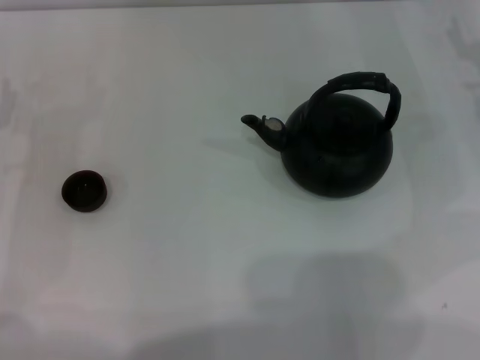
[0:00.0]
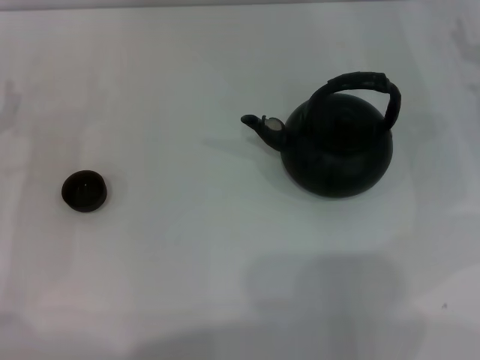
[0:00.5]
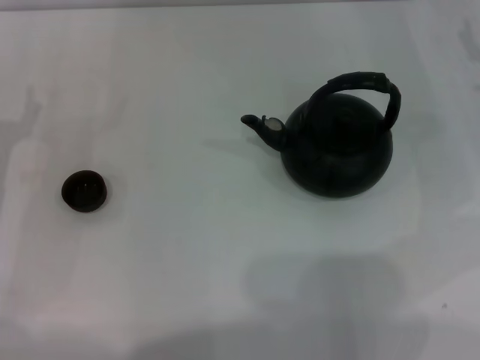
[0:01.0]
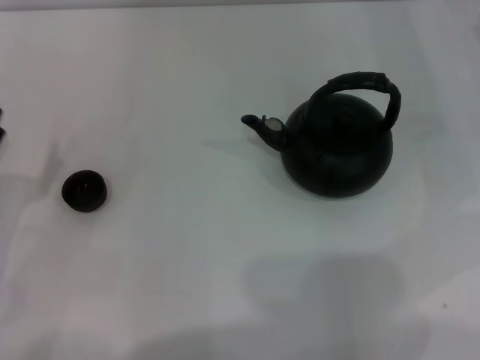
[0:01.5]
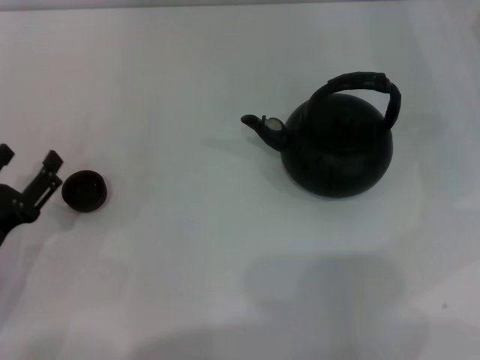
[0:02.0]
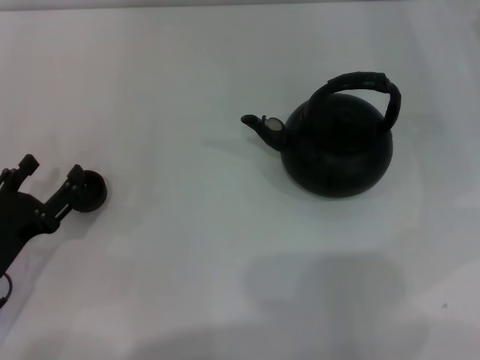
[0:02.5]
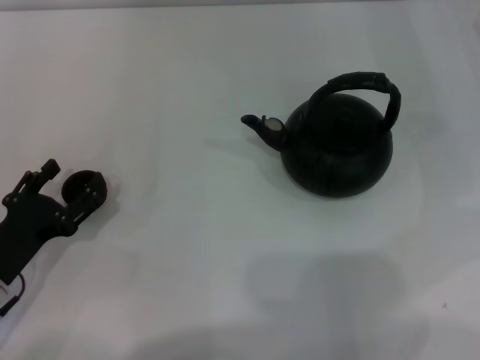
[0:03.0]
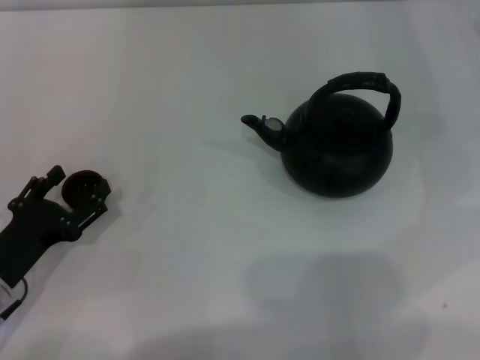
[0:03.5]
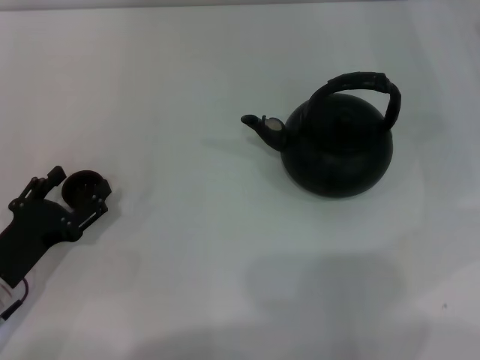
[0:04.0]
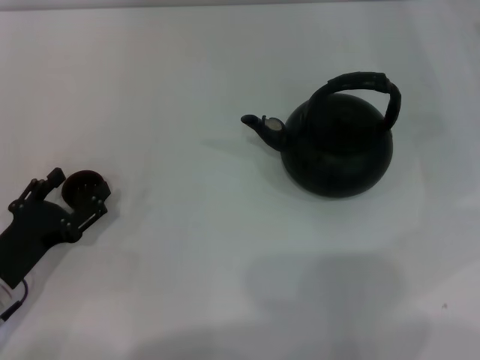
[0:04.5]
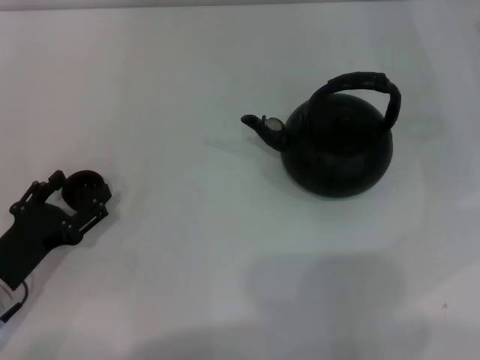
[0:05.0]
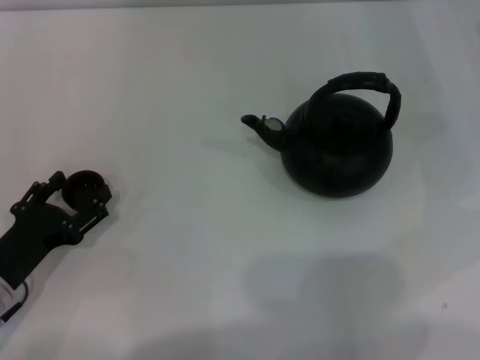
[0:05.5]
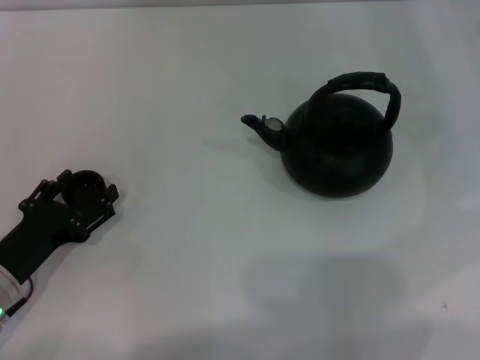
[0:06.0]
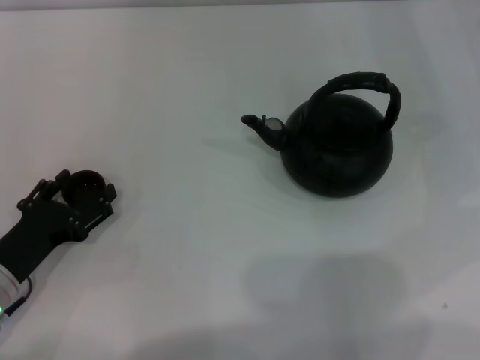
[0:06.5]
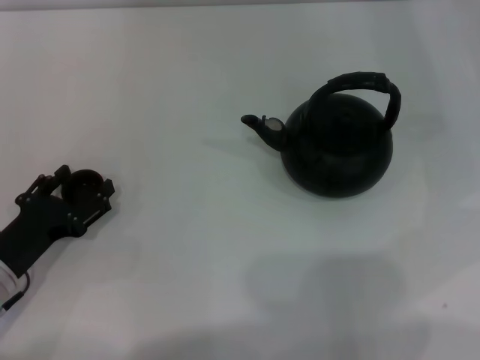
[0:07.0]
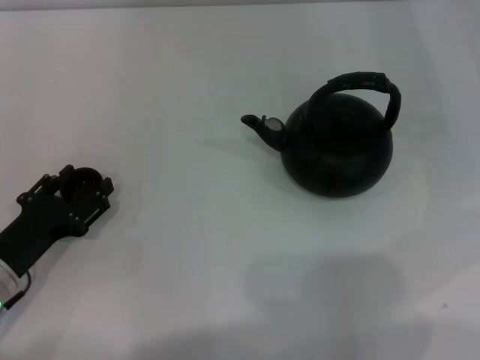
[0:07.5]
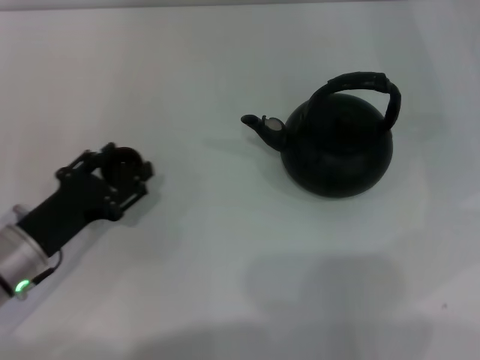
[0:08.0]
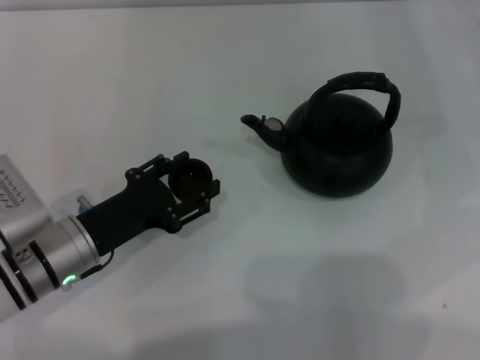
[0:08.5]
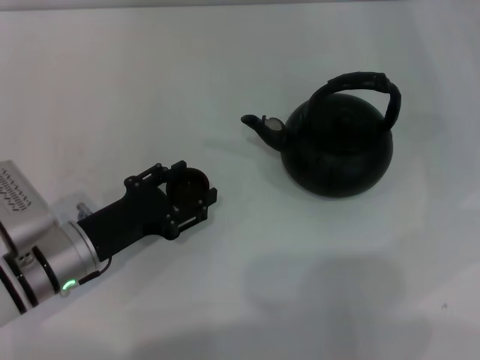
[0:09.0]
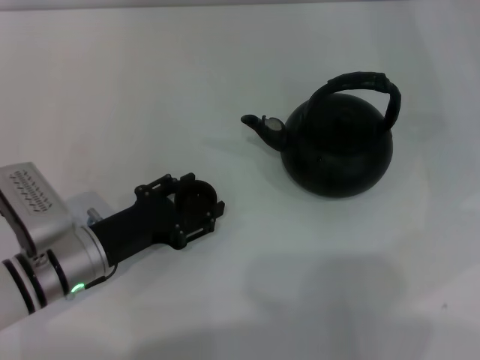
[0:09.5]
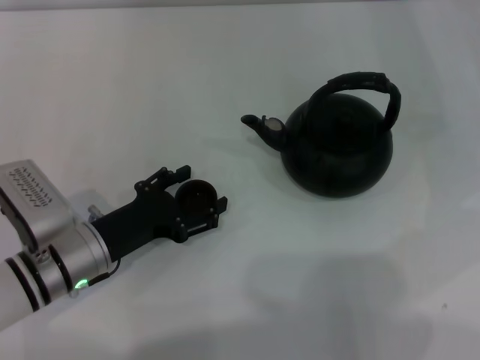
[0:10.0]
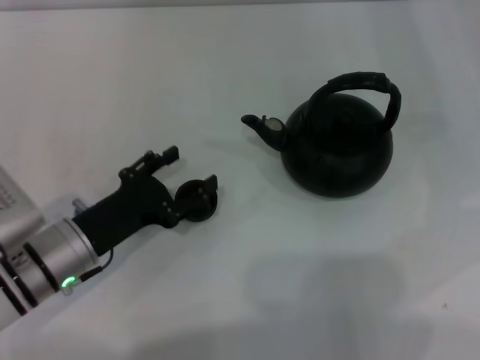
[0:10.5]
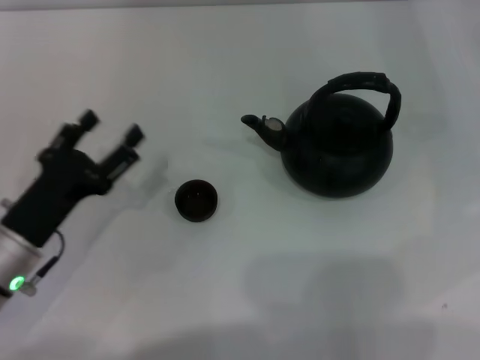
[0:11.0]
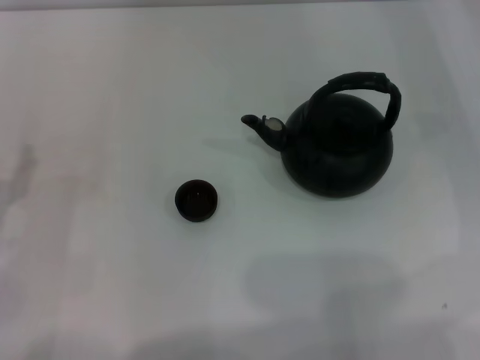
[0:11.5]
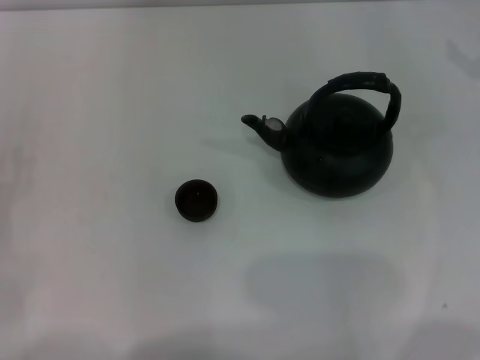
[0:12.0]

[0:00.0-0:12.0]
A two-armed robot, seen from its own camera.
Task of the whole recording: Grasp the handle of the teapot with one hand and pour tea into the teacup.
Step, 0:00.0 to 0:07.5: Pick up the teacup with the left gripper.
Step, 0:08.0 to 0:10.5: Place the teacup in the center of view with the left gripper.
0:00.0 to 0:02.0: The left gripper moves backward, about 10 cm.
0:02.0 to 0:04.0: The grippers make only small movements.
0:04.0 to 0:06.0: Both grippers stay about where they are.
0:06.0 to 0:08.0: The left gripper closes its fingers.
0:08.0 to 0:10.0: The left gripper heads to the right, covering some 5 cm, and opens its fingers.
0:10.0 to 0:12.0: The left gripper heads to the left, covering approximately 15 cm, while the right gripper goes roughly 5 cm upward.

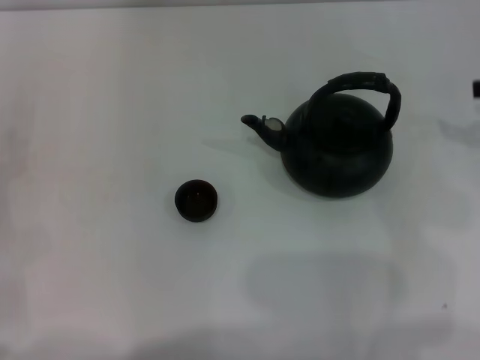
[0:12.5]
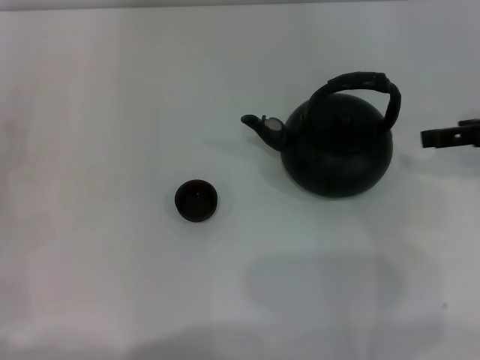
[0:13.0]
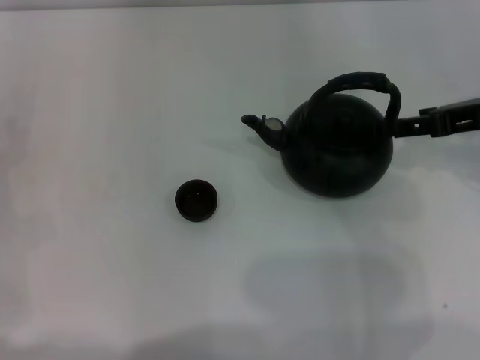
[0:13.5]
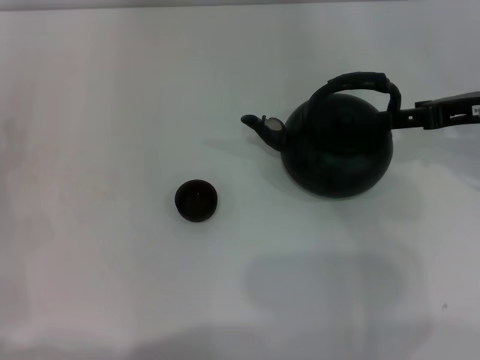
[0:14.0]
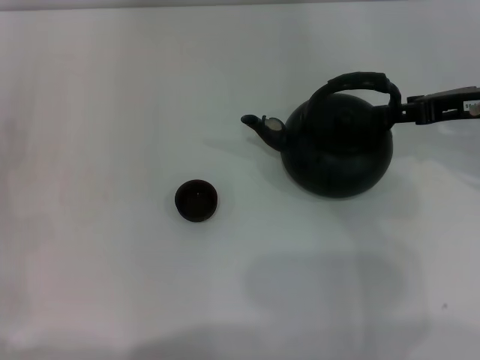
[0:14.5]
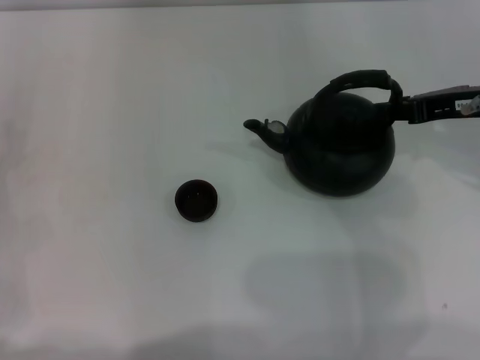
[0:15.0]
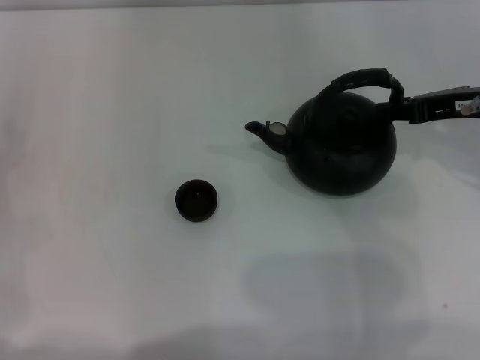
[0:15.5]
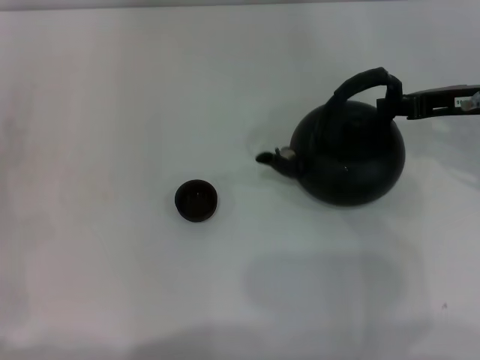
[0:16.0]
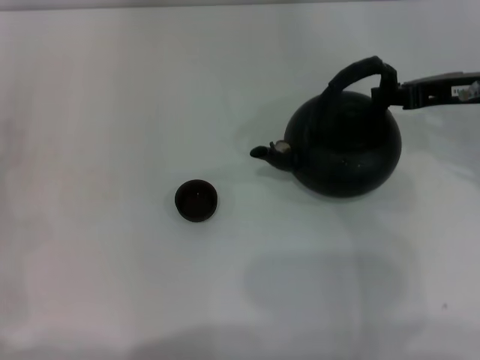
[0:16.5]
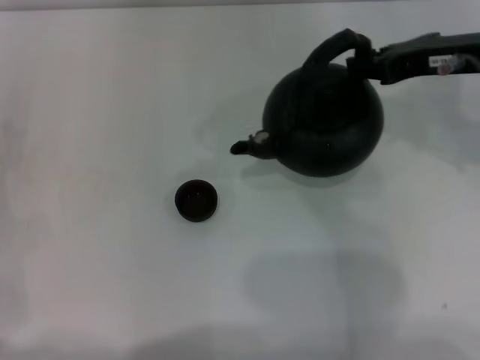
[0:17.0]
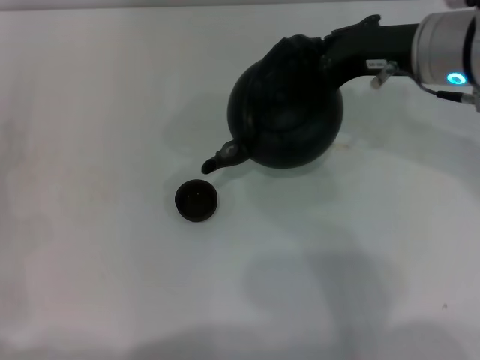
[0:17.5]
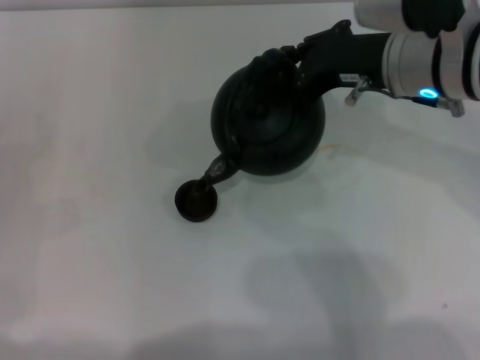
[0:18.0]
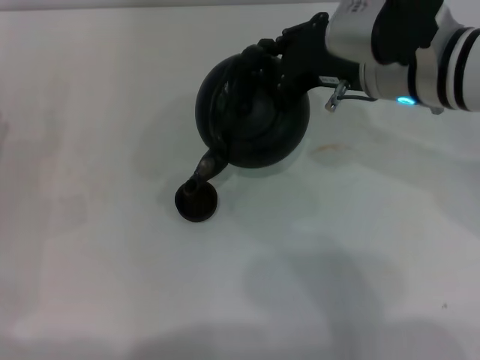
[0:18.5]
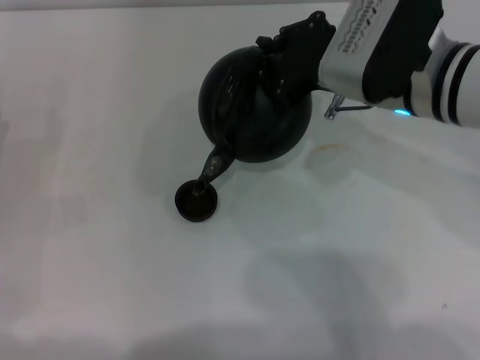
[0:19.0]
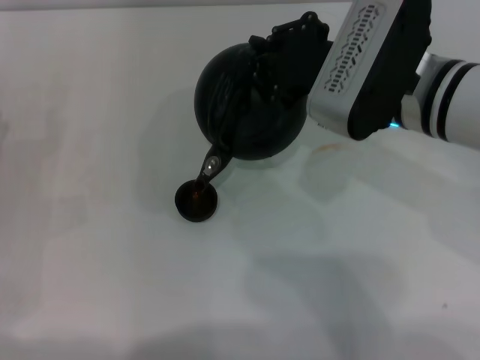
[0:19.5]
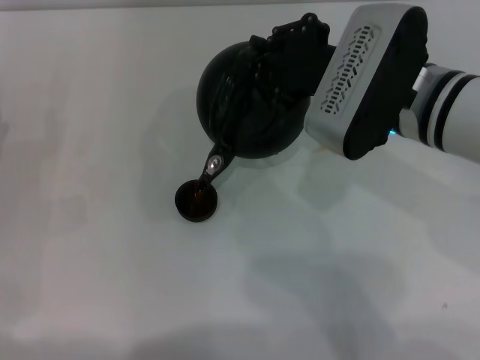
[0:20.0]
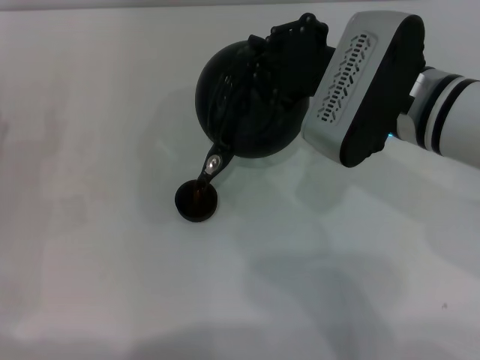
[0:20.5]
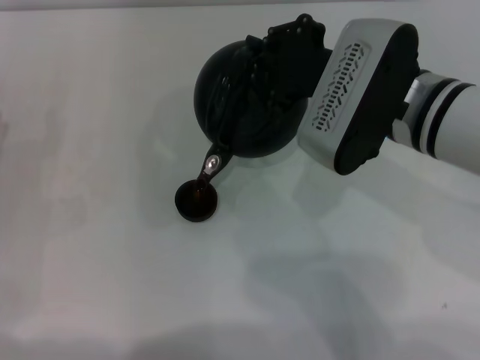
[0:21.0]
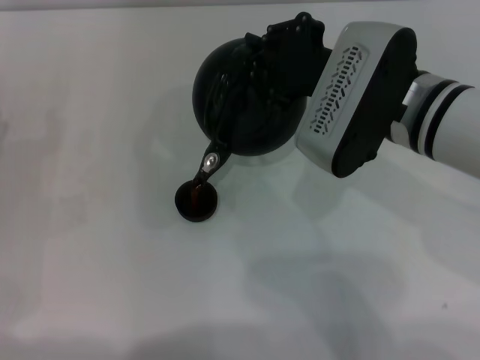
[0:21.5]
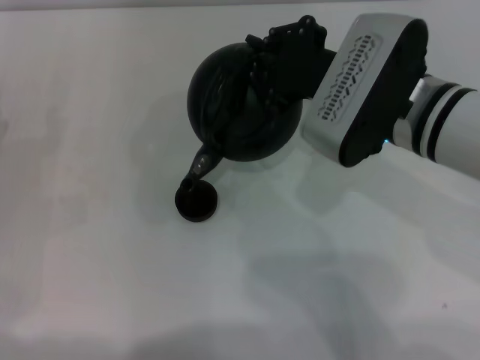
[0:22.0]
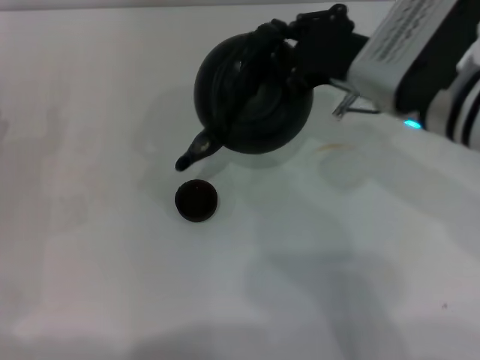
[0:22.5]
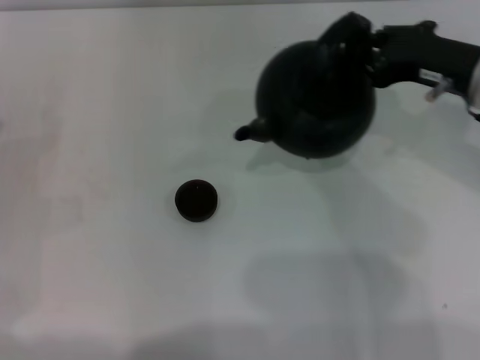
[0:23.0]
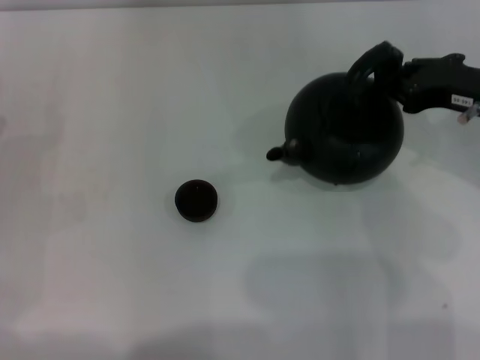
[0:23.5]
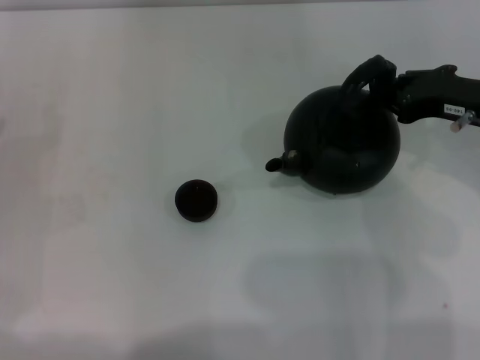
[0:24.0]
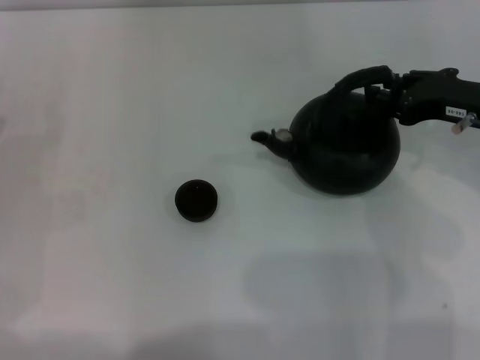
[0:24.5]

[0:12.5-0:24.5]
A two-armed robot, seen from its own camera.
Task of the whole recording: Grasp the handle of the teapot with one hand and pour tea into the teacup.
Step, 0:12.5 to 0:16.5: Pick up the teapot with the right gripper.
Step, 0:17.0 to 0:22.0: Pour tea into the teacup with the right gripper.
0:12.5 to 0:14.5: The right gripper goes approximately 10 cm to the left.
0:14.5 to 0:16.5: The right gripper closes its fingers.
0:16.5 to 0:18.5: The right gripper moves to the left, some 10 cm.
0:20.5 to 0:22.5: There are only small adjustments of the grippers.
0:22.5 to 0:24.5: The right gripper goes approximately 10 cm to the right.

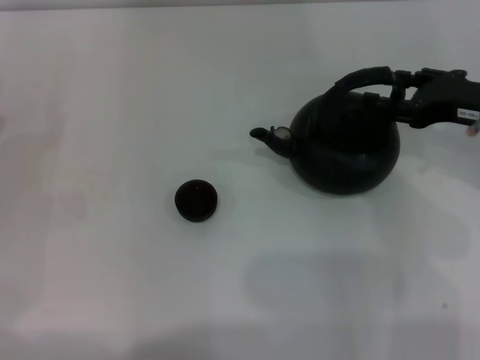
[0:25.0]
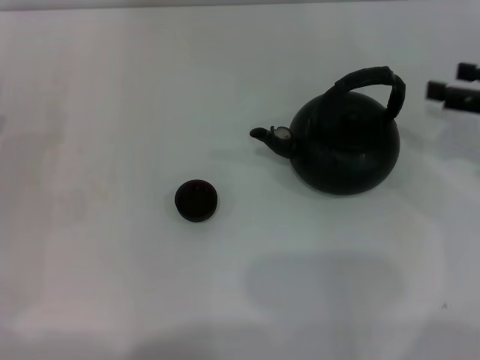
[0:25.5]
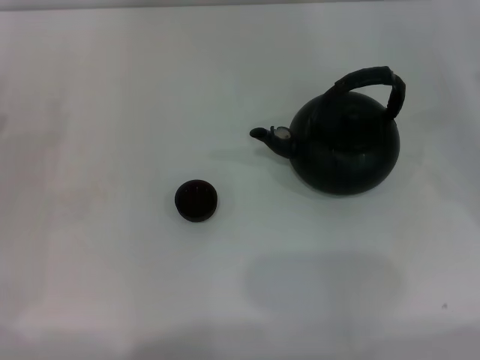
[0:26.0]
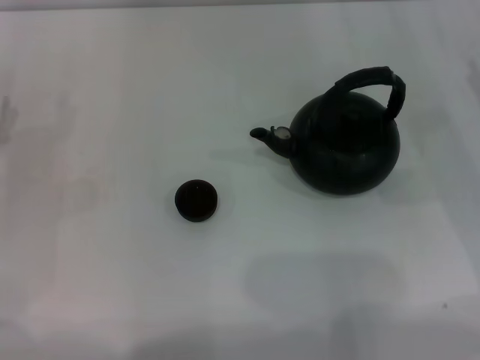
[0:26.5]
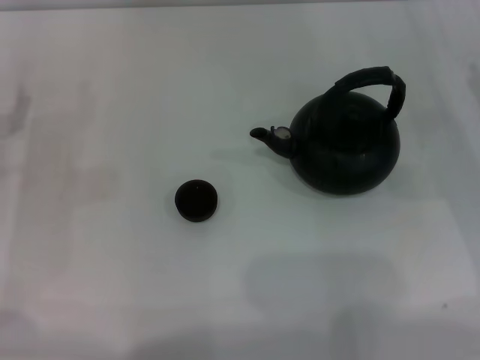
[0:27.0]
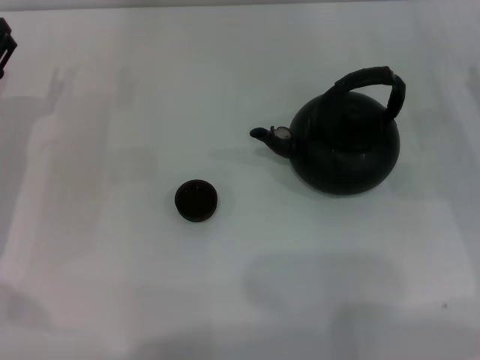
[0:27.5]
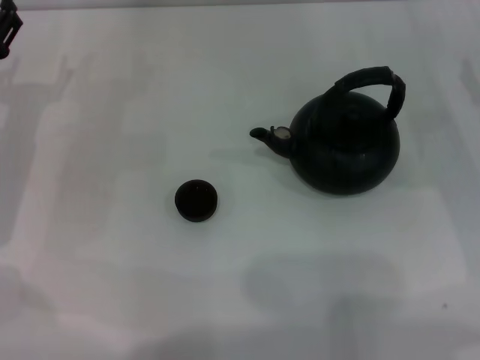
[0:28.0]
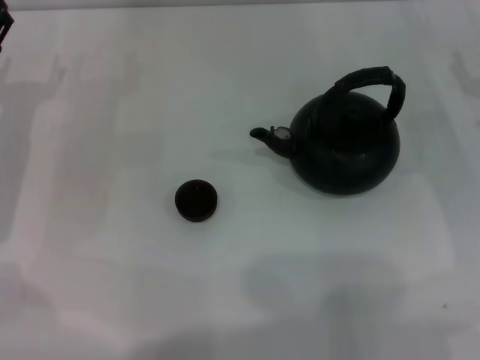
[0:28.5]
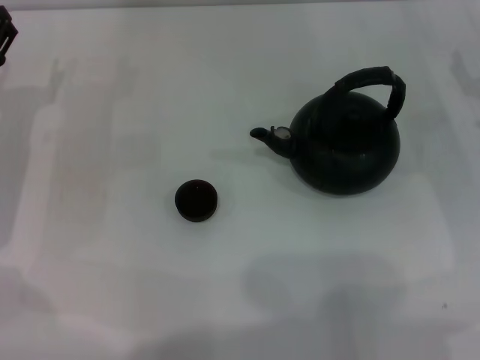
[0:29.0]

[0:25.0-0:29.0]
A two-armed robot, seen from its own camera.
Task of the whole recording: Grasp the handle of the teapot with one hand and pour tea into the teacup.
0:25.0 to 0:27.0: The right gripper moves downward and to the right, some 10 cm, and opens up.
